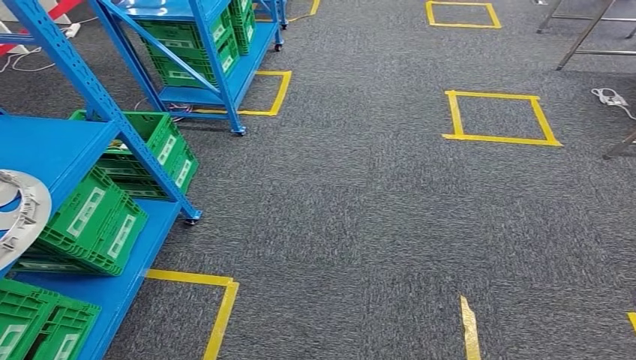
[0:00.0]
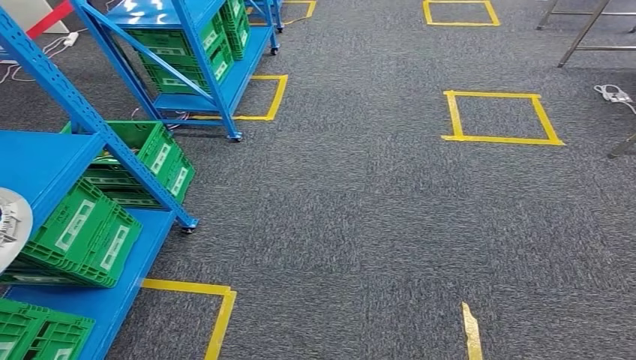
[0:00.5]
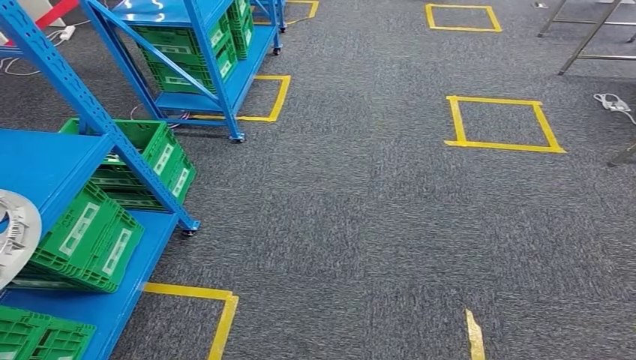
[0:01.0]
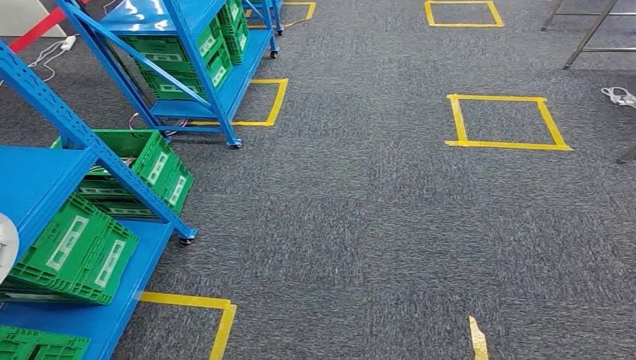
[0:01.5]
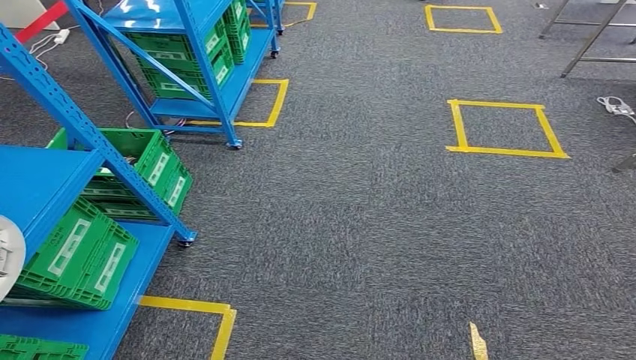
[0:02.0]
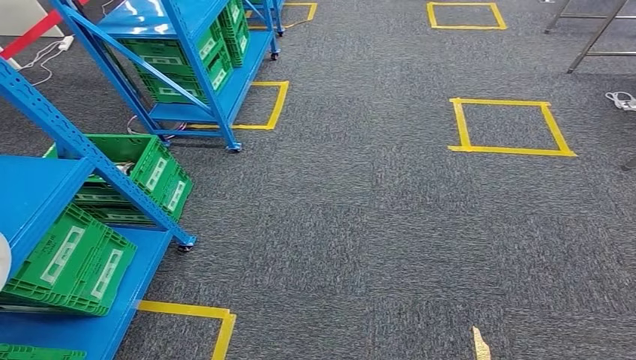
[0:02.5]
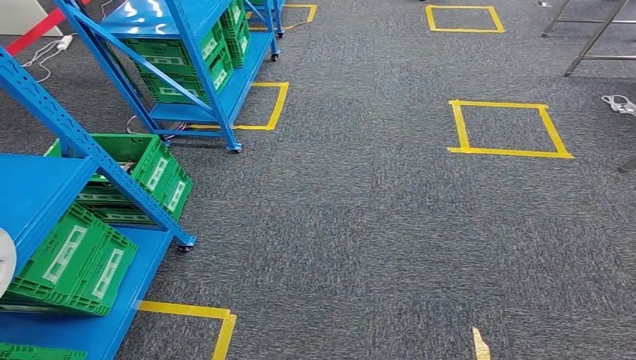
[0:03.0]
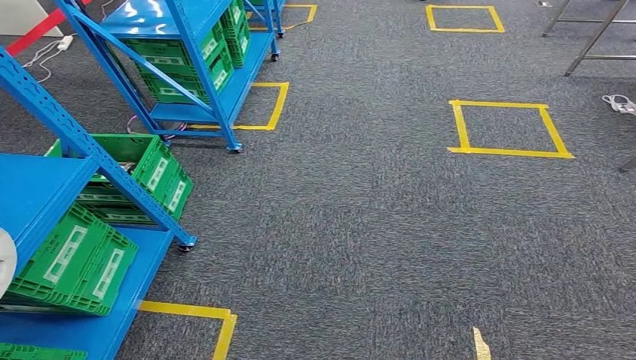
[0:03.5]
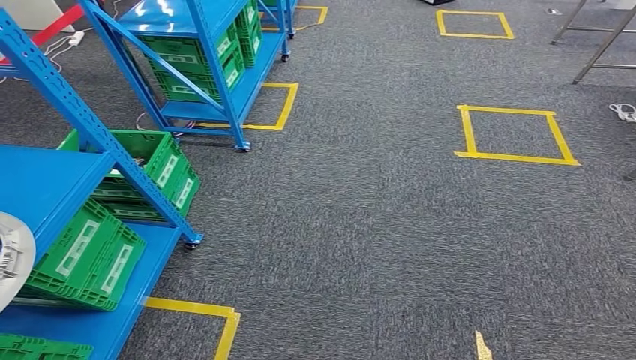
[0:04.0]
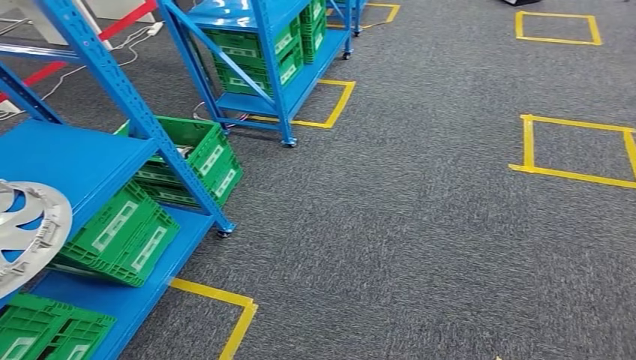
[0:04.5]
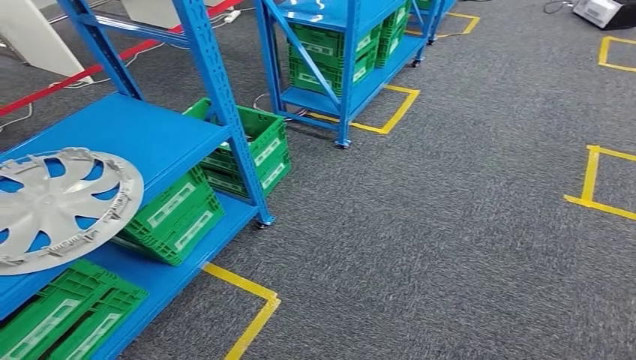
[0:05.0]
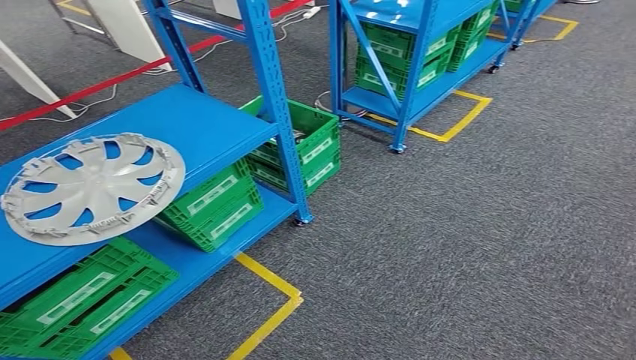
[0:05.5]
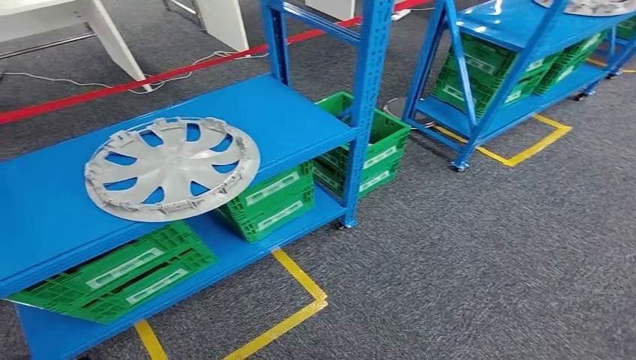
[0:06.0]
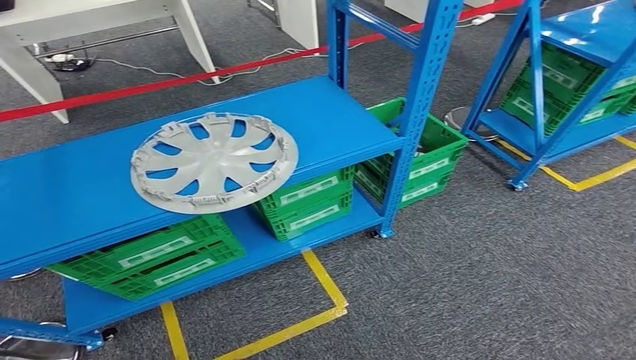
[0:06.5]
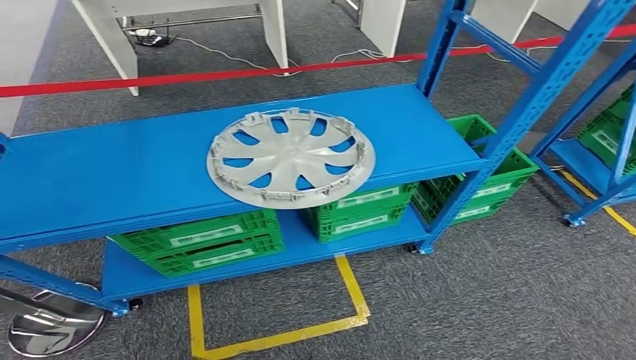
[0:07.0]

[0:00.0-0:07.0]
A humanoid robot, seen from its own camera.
Step, 0:00.0 to 0:07.0: Return to the initial position at the workbench.
0:02.0 to 0:03.5: Both hands stay about where they are.
